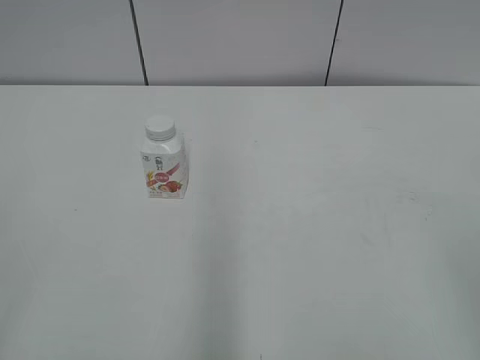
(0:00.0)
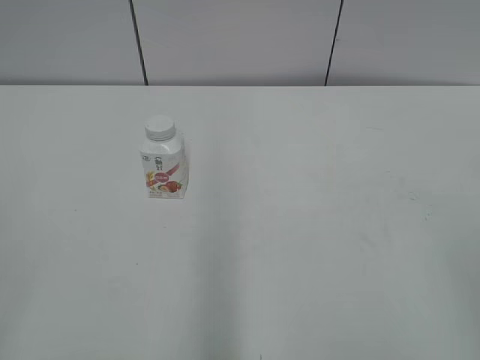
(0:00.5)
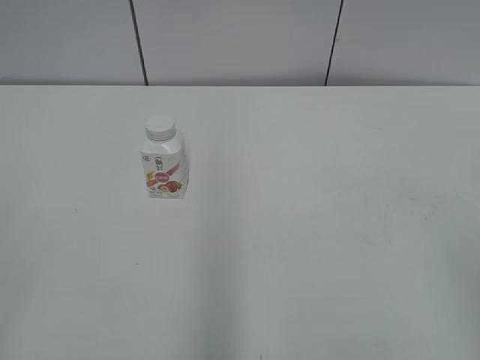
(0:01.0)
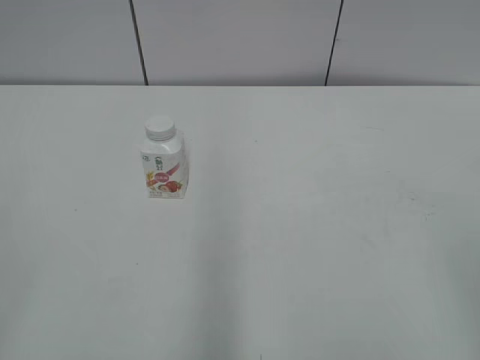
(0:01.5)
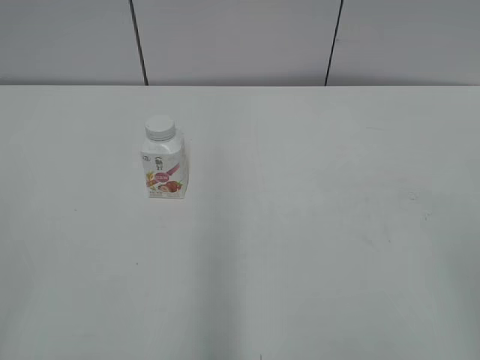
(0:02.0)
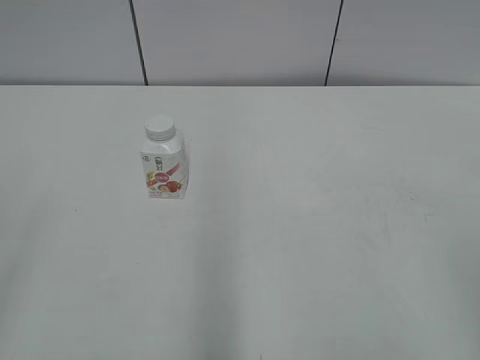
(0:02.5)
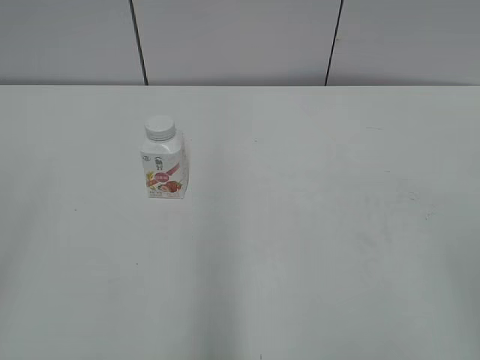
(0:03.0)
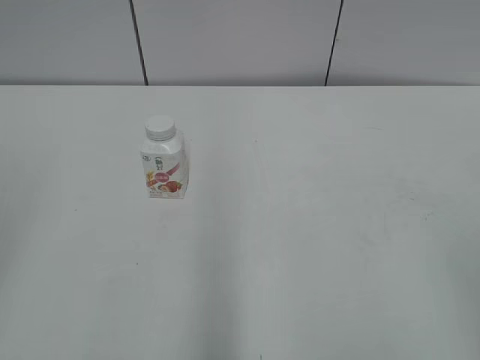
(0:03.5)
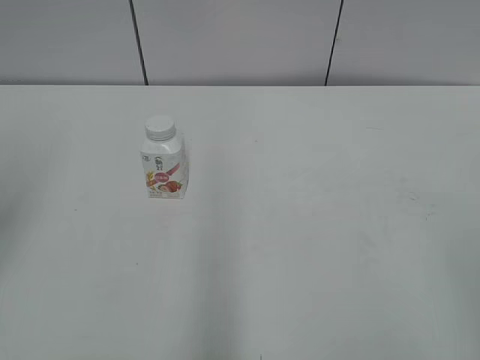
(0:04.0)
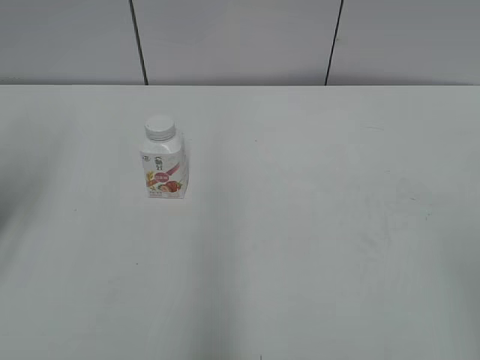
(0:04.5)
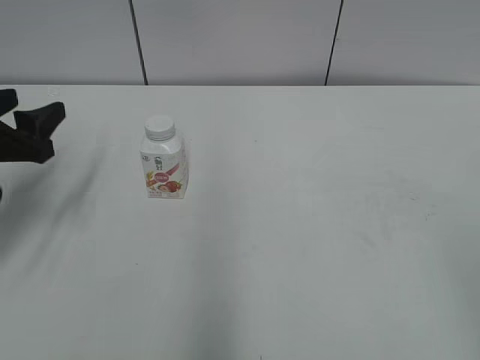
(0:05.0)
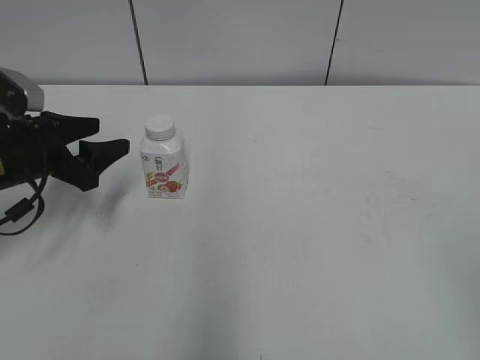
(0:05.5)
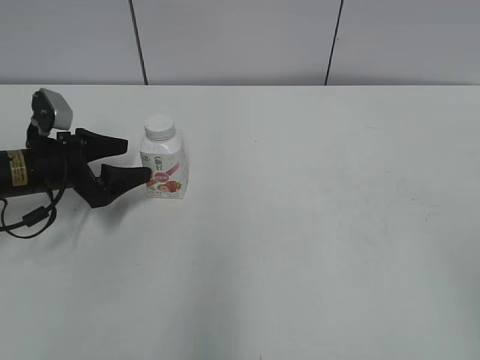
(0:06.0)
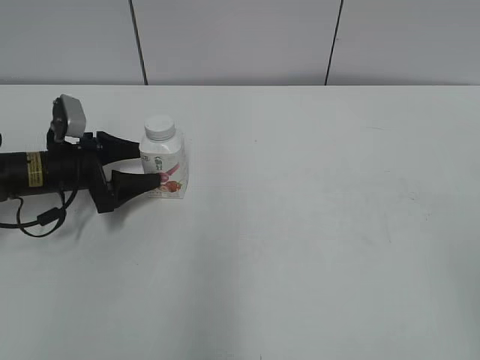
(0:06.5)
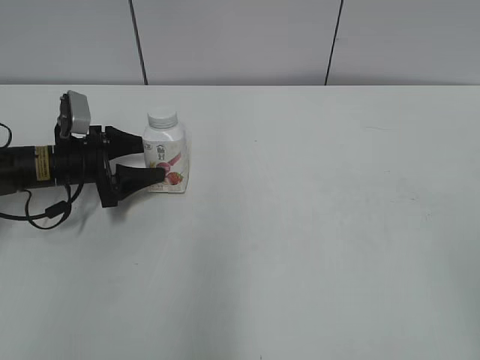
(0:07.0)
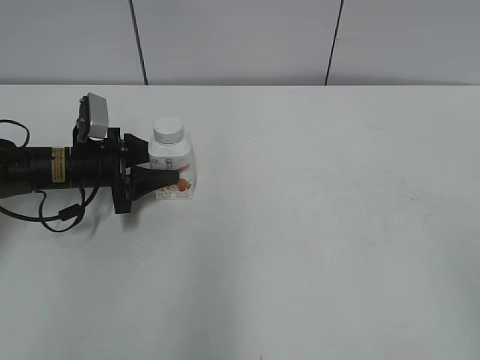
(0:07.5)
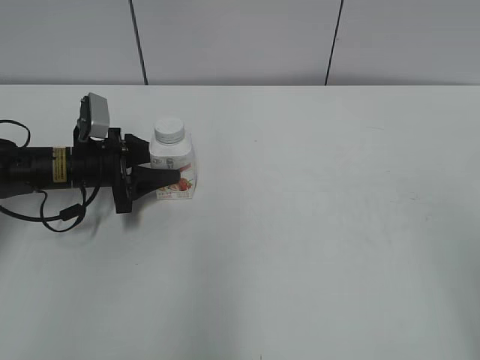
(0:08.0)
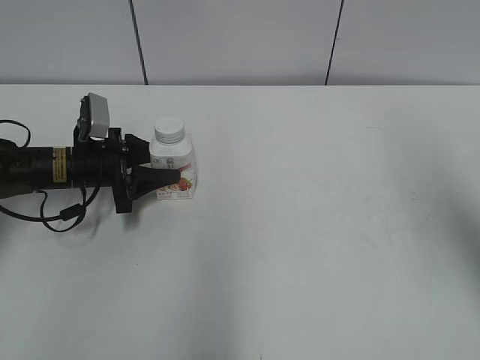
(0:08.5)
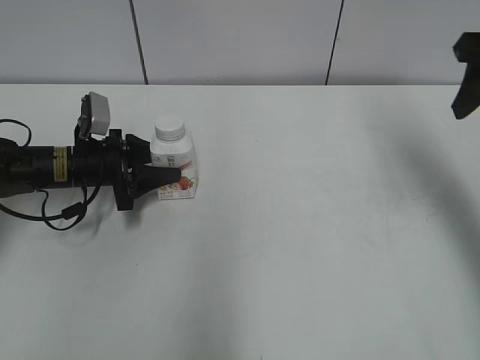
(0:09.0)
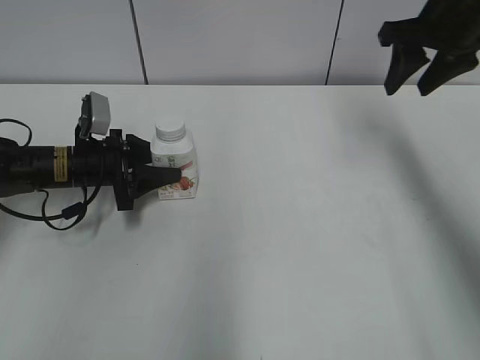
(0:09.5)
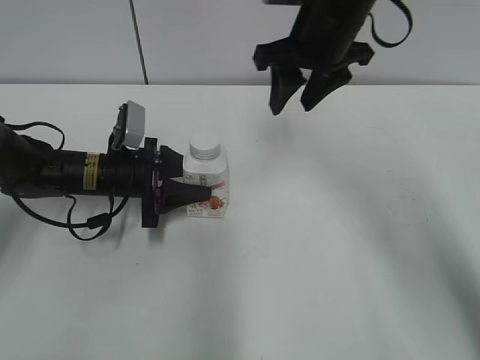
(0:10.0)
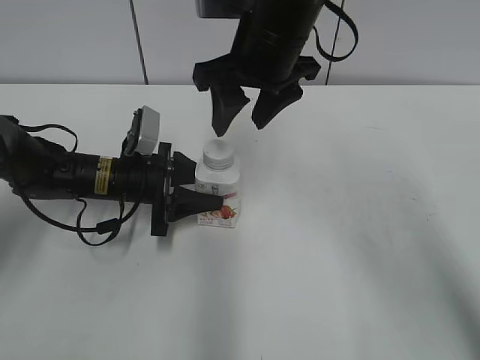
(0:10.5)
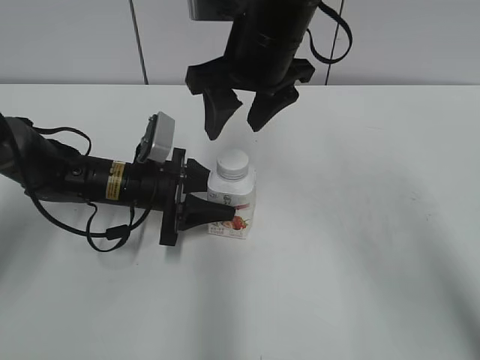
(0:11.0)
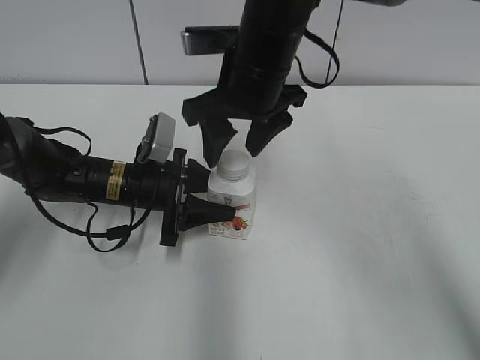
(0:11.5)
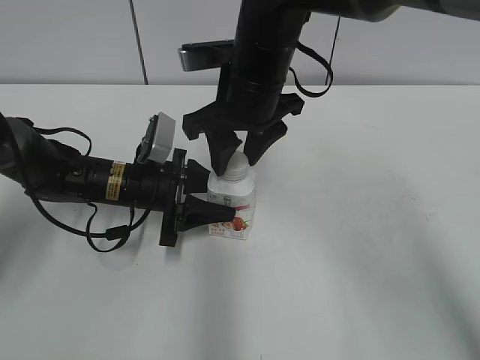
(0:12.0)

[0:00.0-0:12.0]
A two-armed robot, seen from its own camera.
Step, 0:00.0 to 0:08.0: Grasp the bottle and move it to the center of the table with the left gripper.
0:04.0 to 0:06.0: The left gripper moves downward and forward, roughly 30 cm.
0:06.0 to 0:08.0: The left gripper moves approximately 5 cm, and closes up.
0:08.0 to 0:10.0: The right gripper is displaced forward and to the left by approximately 40 cm.
0:10.0 to 0:12.0: The right gripper heads to the left and backward, covering about 10 cm.

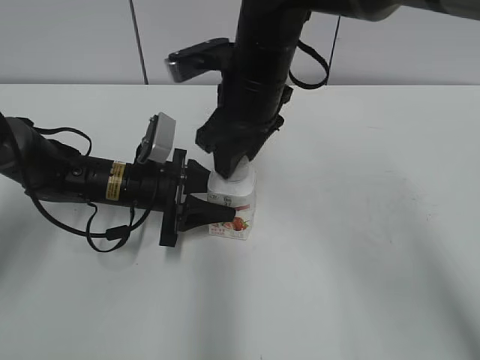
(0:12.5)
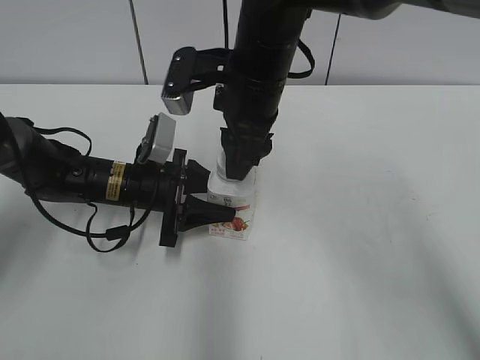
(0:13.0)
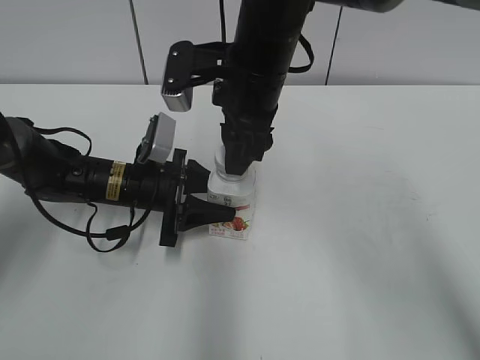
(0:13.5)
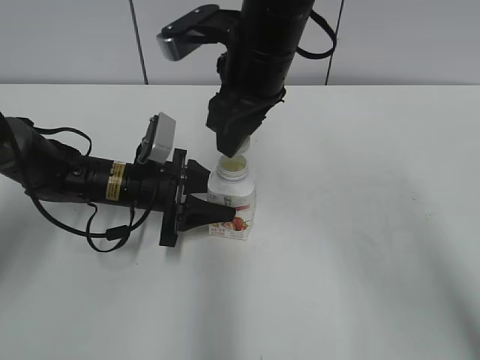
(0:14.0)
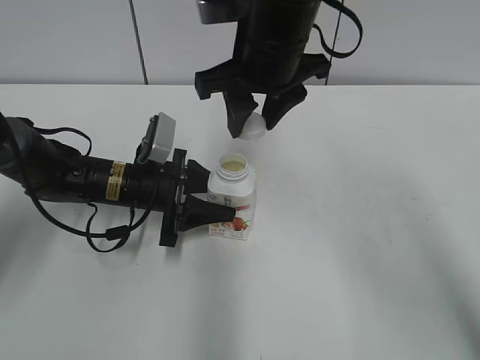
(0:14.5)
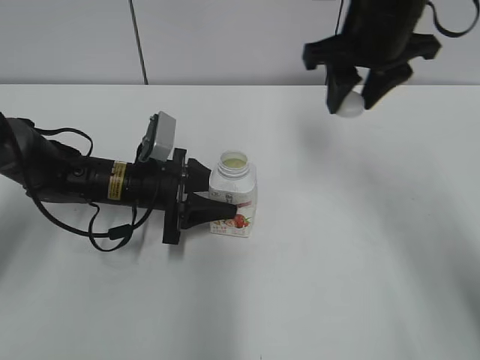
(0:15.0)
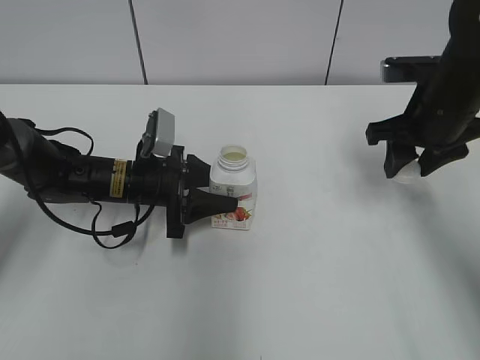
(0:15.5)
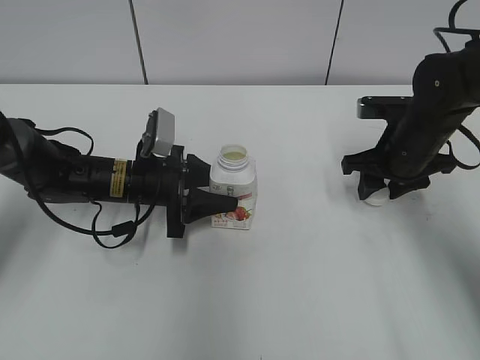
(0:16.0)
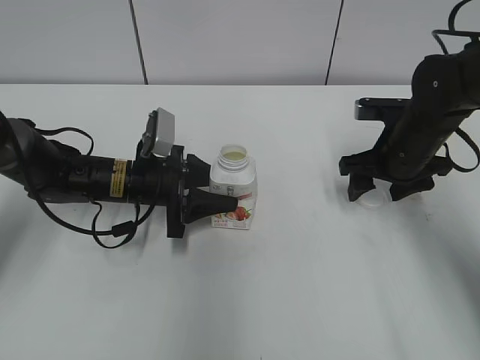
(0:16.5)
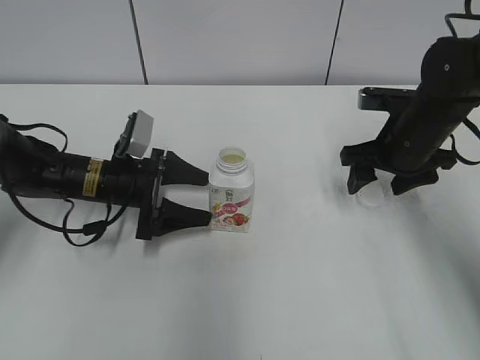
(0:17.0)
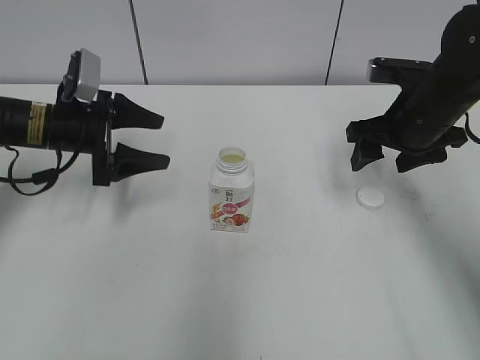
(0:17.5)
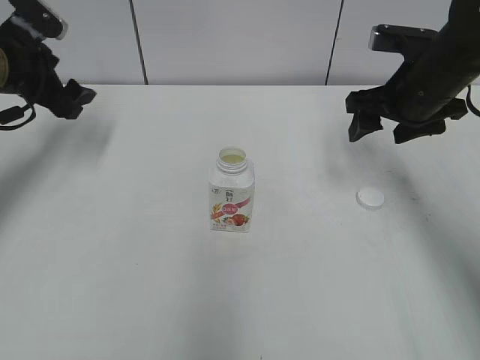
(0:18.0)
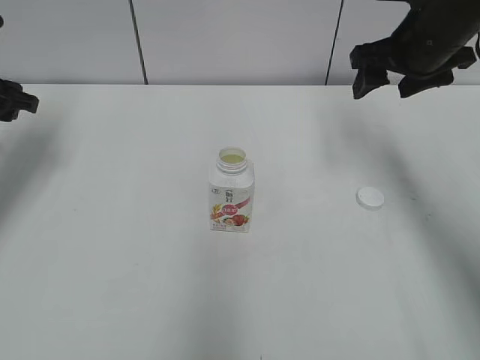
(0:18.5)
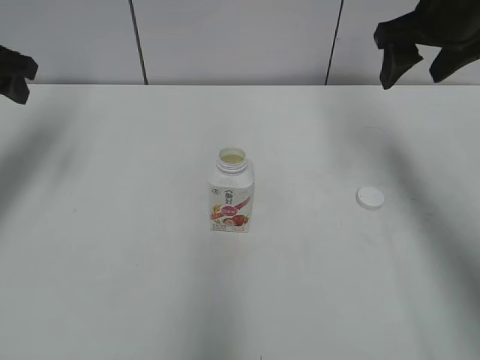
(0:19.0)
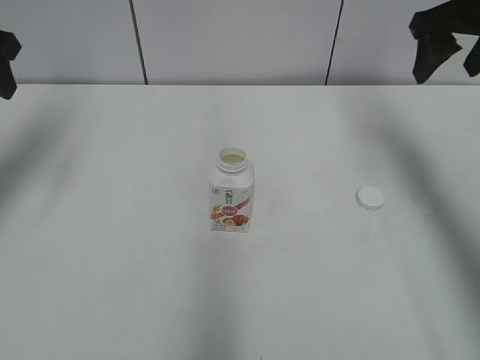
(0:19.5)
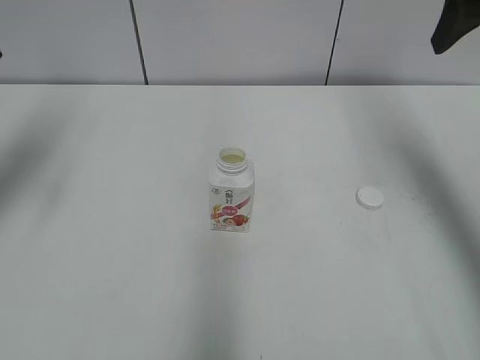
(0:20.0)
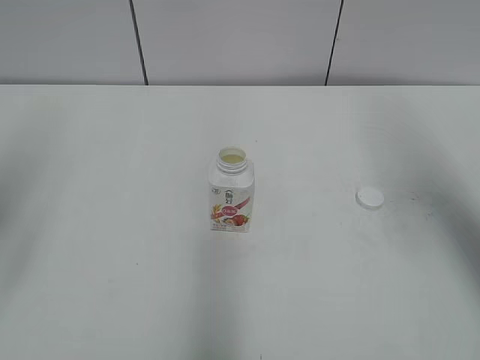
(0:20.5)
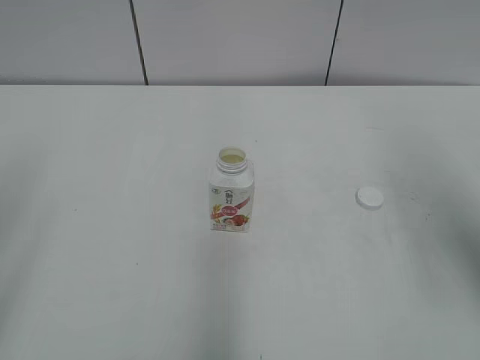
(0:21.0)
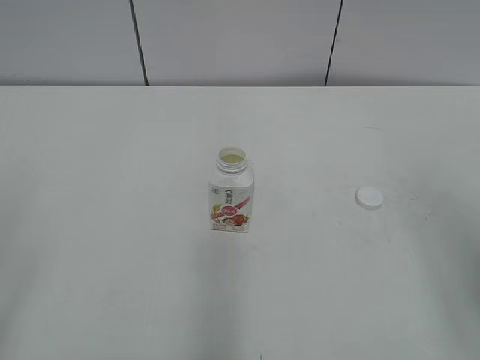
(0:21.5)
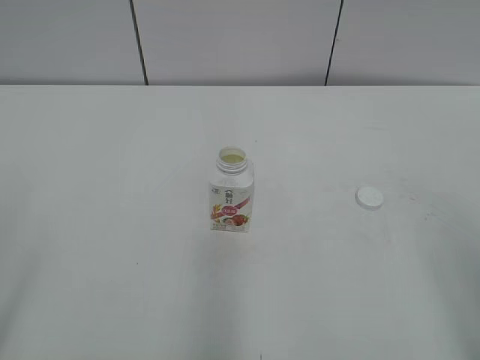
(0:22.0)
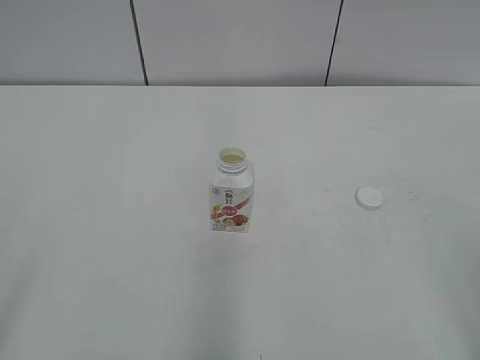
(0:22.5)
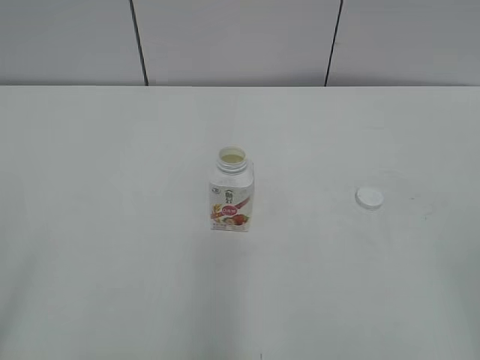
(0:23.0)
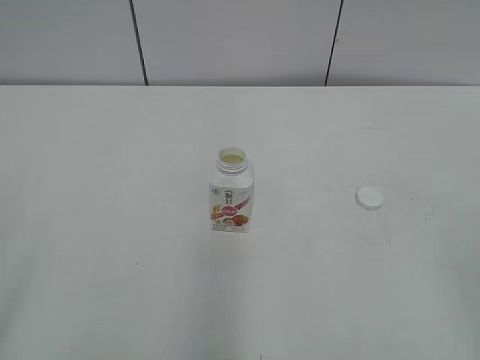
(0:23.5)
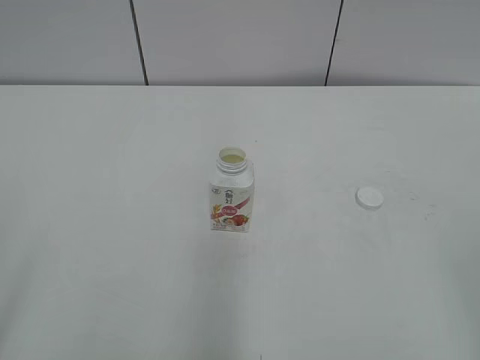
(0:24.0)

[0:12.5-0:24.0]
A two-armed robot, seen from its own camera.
Step, 0:12.5 to 0:14.0: Unscrew the bottle cap with the right gripper while holding the bottle with the left gripper.
Step, 0:14.5 to 0:16.0: Place the bottle cap on the table with the right gripper.
0:14.5 to 0:16.5: The right gripper moves to the right and downward, about 25 cm, and opens up.
0:16.5 to 0:18.5: The left gripper is displaced to the left and upward by some 25 cm, and opens up, while the right gripper goes some 15 cm upward.
0:18.5 to 0:20.0: The right gripper goes about 10 cm upward, while the left gripper heads upward and backward, covering roughly 10 cm.
0:20.0 to 0:22.0: The two grippers go approximately 30 cm backward.
